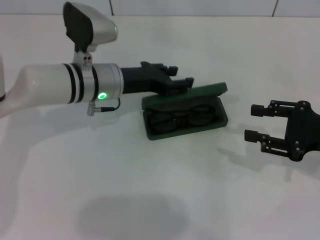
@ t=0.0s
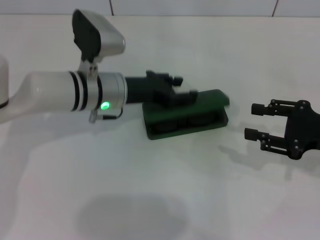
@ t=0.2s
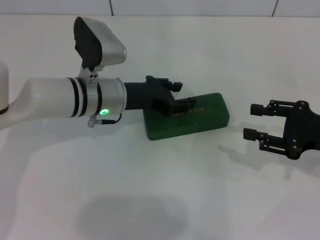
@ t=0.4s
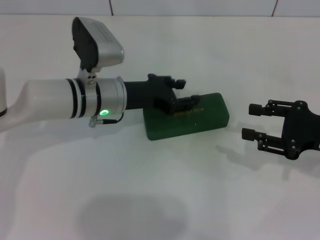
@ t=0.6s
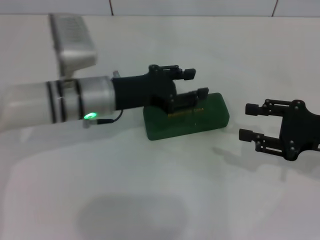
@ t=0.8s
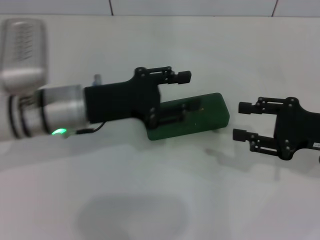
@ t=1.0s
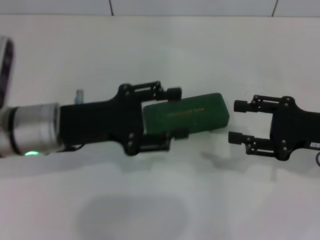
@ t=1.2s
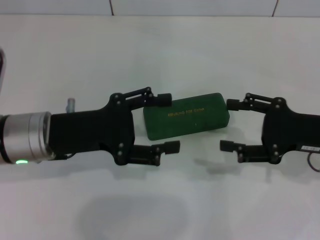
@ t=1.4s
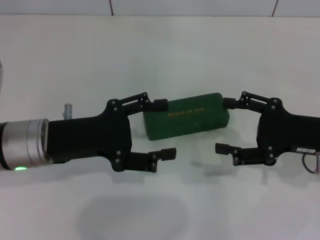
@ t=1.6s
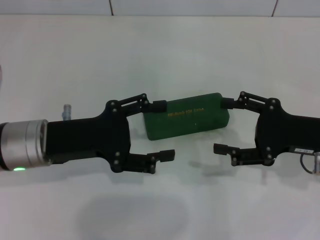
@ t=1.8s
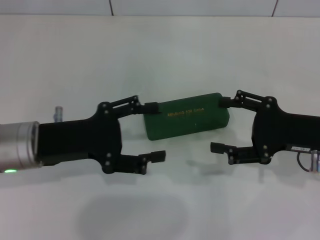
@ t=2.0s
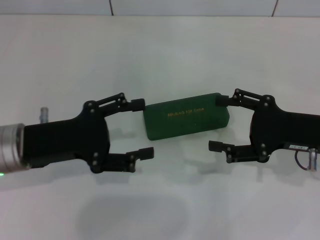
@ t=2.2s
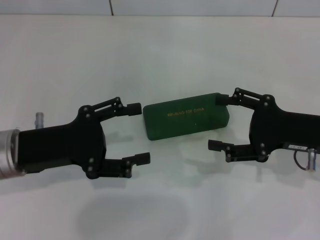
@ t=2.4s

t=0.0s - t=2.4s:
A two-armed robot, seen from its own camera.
t=0.0s - t=1.2s: The left gripper is displaced backward and to the left by some 10 cm.
t=1.2s - t=2.4s: The left gripper changes place by some 5 cm, and opens.
